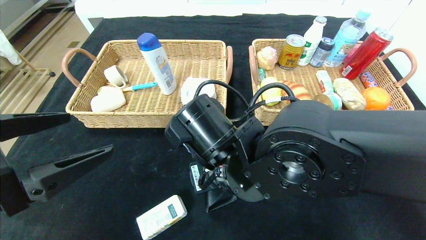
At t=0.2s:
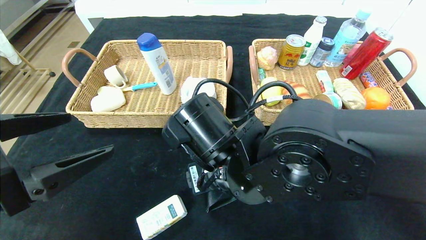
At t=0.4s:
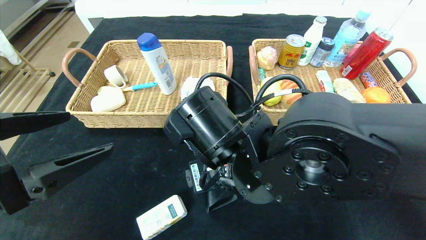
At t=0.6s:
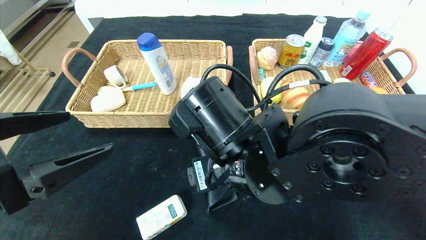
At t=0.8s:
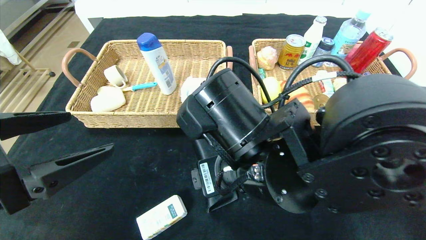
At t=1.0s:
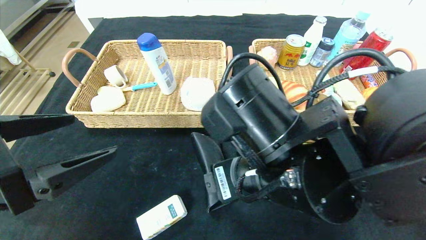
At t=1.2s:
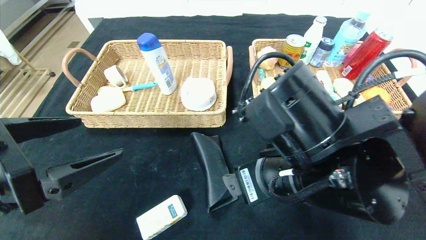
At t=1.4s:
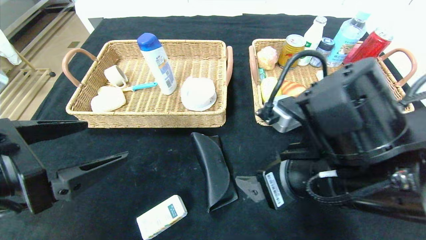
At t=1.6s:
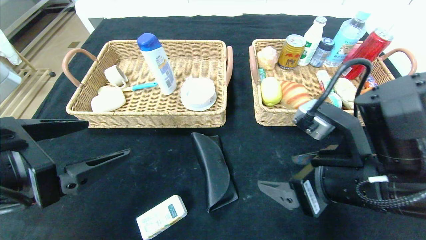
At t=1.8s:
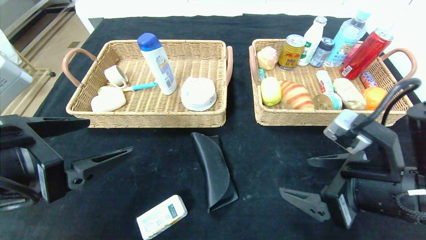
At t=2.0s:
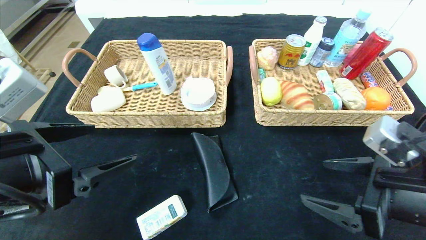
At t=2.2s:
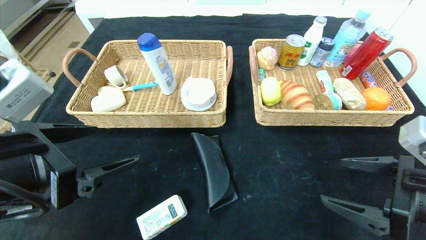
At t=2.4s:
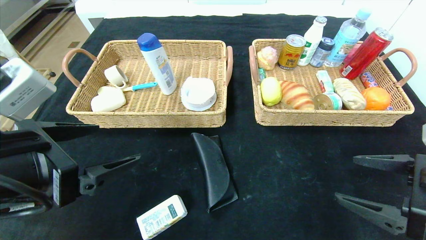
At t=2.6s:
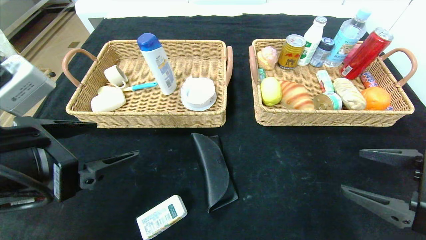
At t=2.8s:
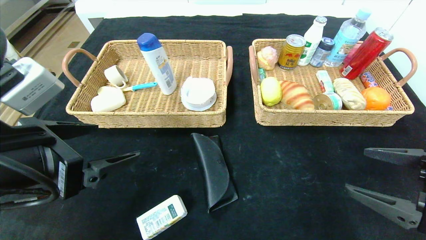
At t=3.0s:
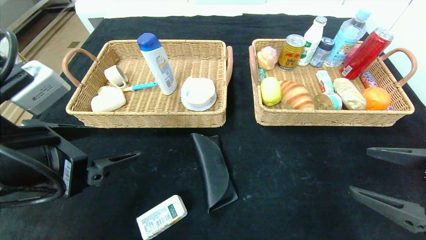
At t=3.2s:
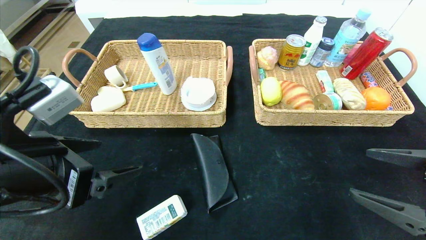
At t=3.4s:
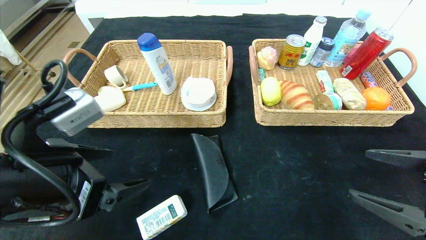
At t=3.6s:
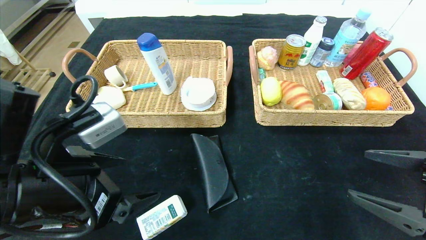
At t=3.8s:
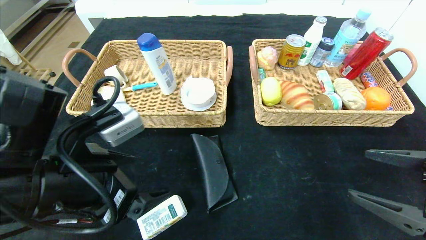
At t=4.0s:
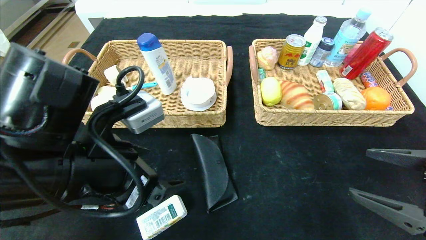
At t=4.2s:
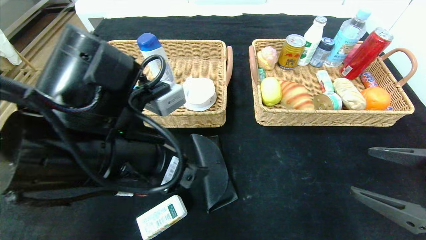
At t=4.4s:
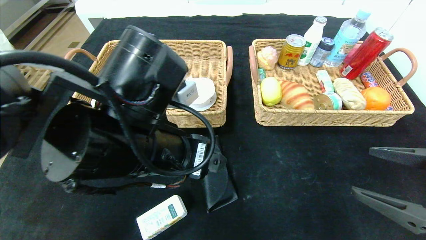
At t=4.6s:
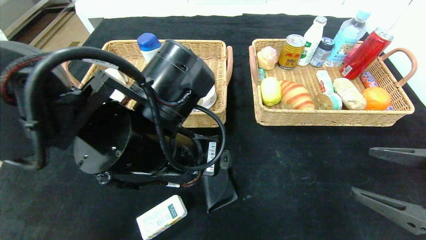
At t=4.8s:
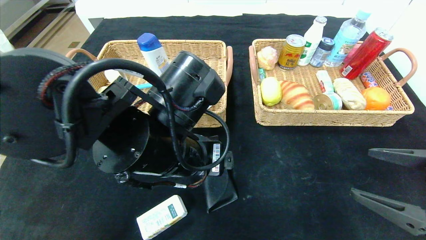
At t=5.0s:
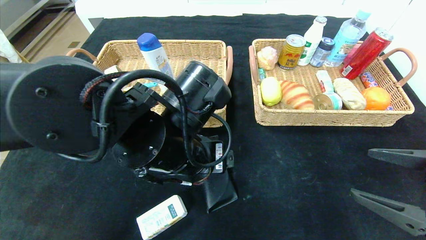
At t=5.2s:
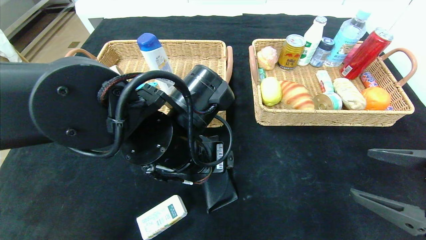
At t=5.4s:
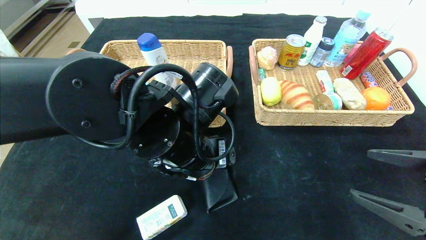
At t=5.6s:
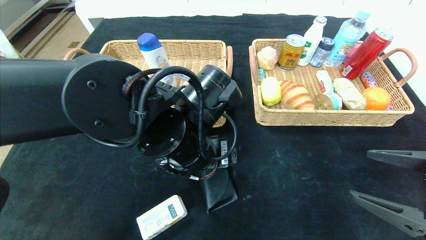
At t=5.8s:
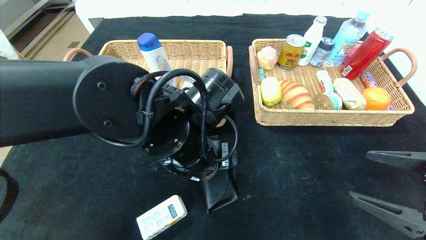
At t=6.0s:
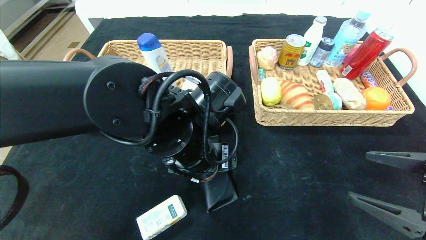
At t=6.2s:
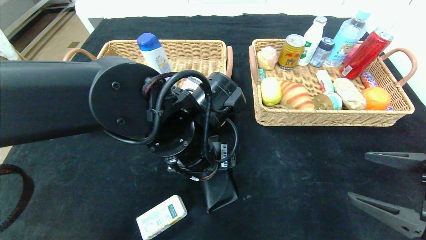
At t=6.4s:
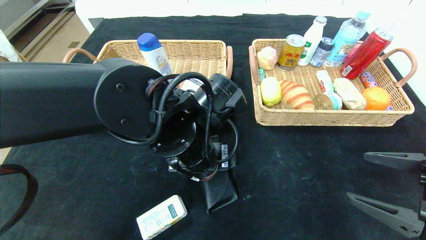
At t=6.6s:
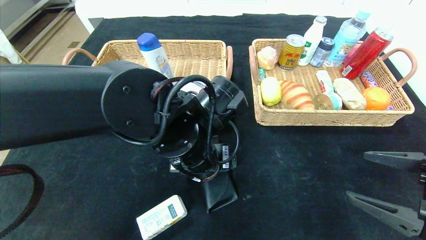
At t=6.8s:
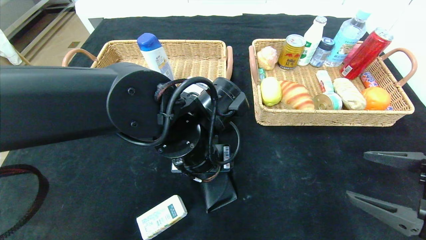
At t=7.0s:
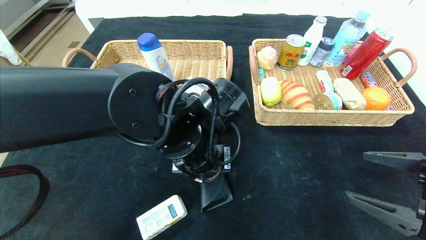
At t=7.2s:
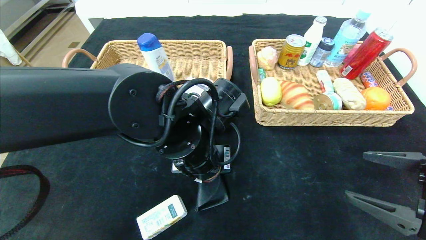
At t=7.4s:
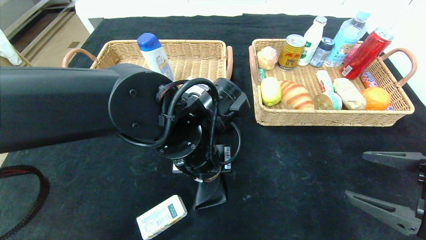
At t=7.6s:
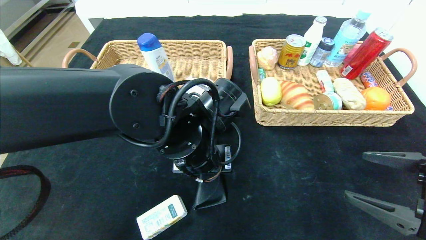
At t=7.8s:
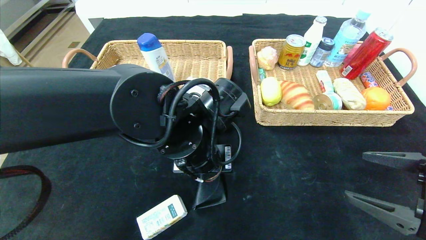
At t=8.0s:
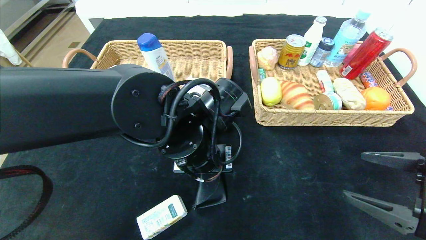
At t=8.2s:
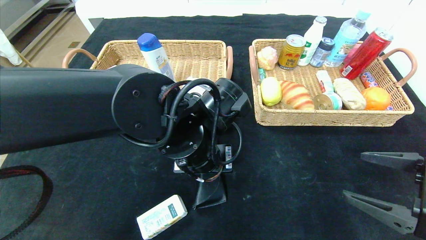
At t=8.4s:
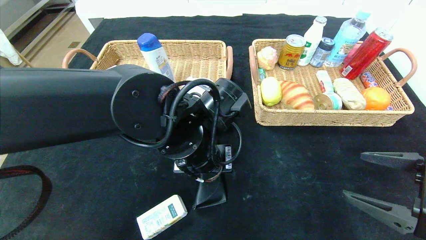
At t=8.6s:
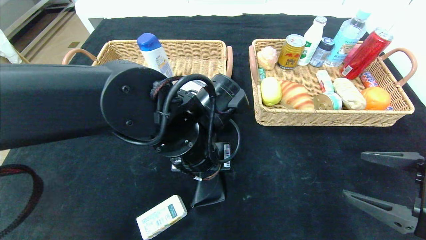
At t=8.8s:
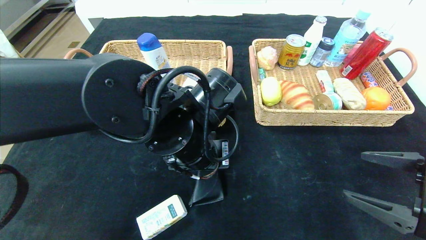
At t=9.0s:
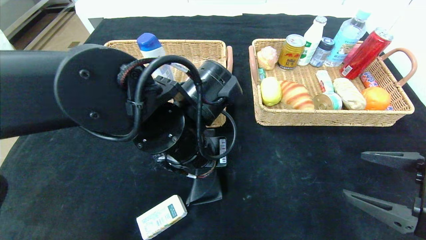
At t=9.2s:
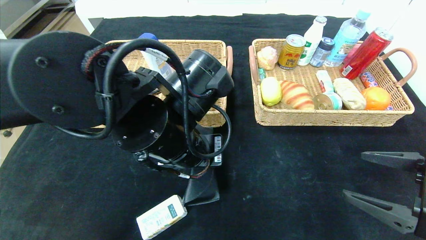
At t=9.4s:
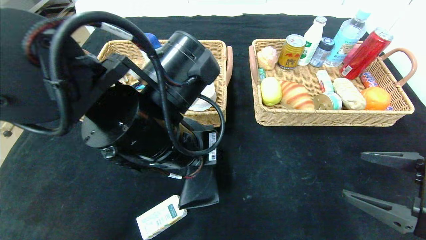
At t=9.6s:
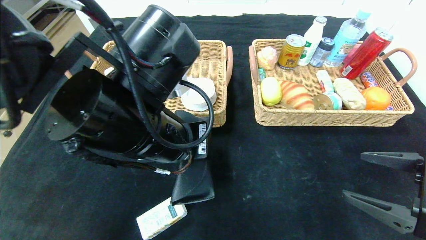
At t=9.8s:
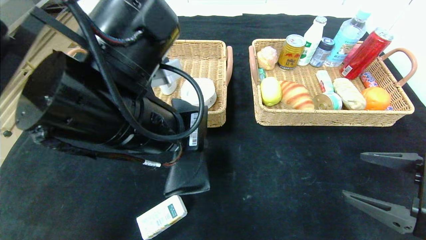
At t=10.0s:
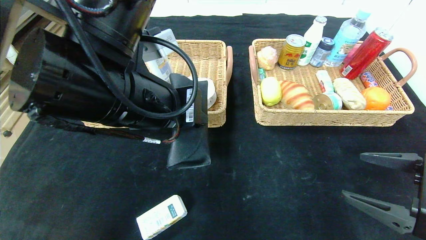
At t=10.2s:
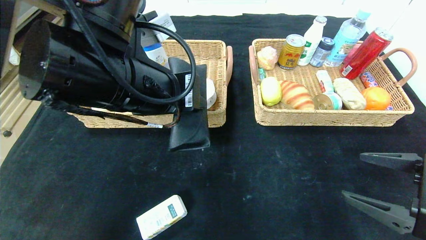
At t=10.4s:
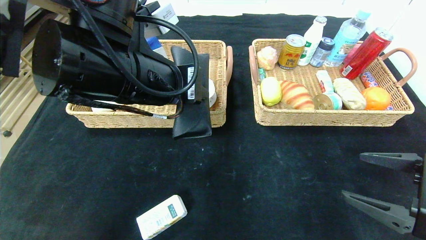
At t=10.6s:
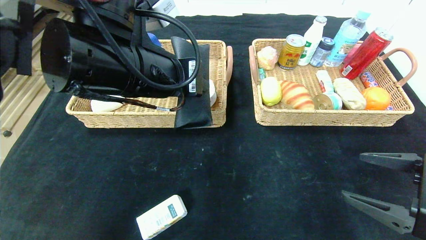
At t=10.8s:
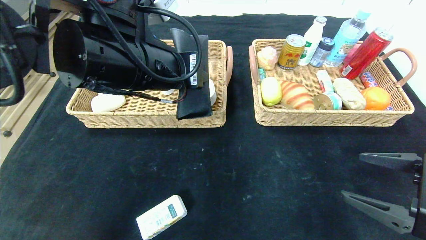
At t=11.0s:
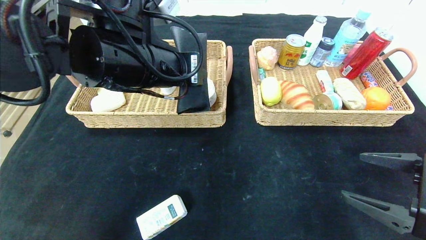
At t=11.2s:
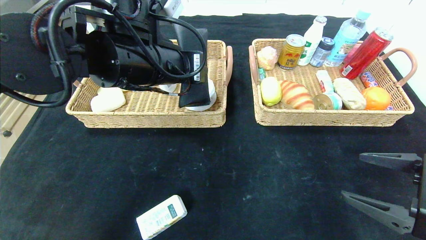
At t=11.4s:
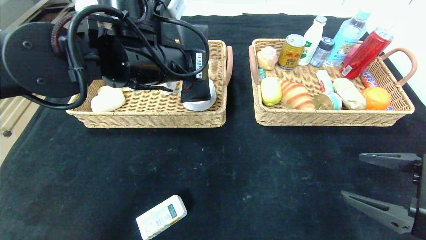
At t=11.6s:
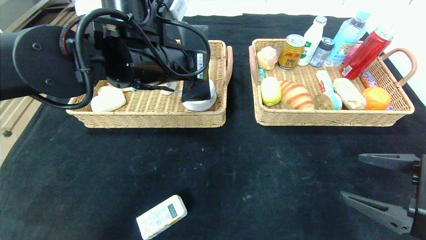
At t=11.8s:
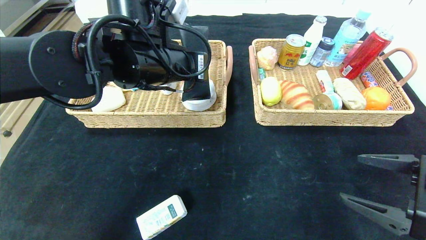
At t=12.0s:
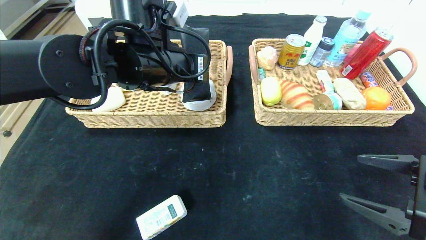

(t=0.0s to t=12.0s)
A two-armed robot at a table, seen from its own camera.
t=0.0s - t=1.6s: The right gripper goes approximately 15 cm to the right.
t=1.6s - t=3.0s: The right gripper shifts about 15 cm to the right.
t=3.0s - t=4.4s: The left gripper heads to the right, covering some 15 cm.
t=4.4s - t=6.0s: The left gripper shifts by some 5 cm.
t=6.0s - t=7.6s: The left gripper closes.
t=7.6s - t=9.0s: The grippers move only a little.
t=9.0s - t=10.4s: The left gripper travels upward and to the left by approximately 10 cm.
t=10.4s - t=12.0s: The left gripper shifts some 10 cm forward.

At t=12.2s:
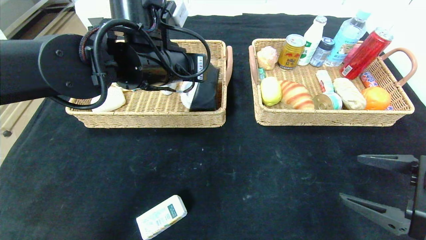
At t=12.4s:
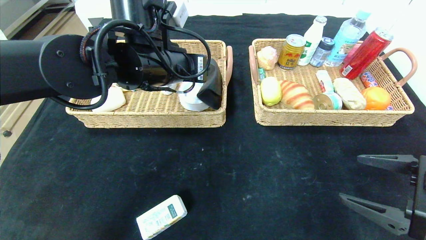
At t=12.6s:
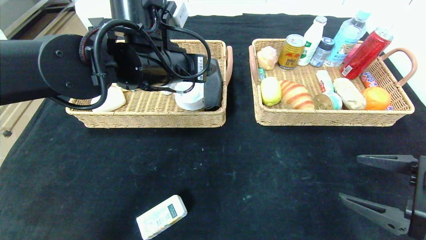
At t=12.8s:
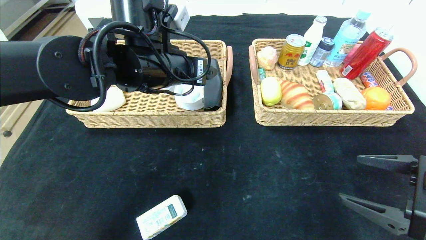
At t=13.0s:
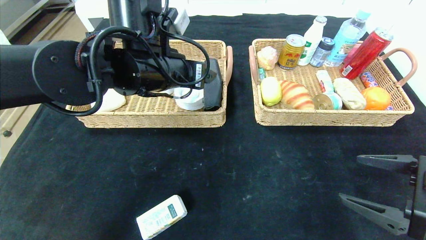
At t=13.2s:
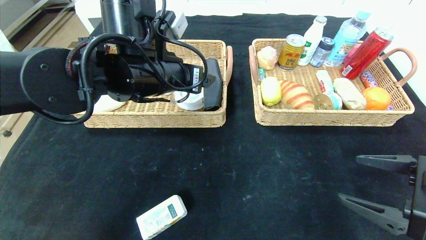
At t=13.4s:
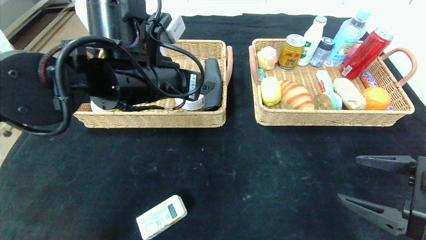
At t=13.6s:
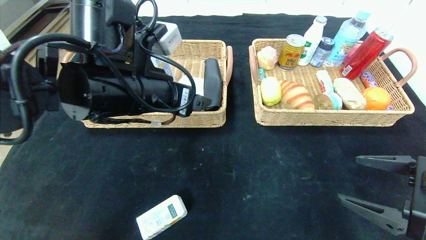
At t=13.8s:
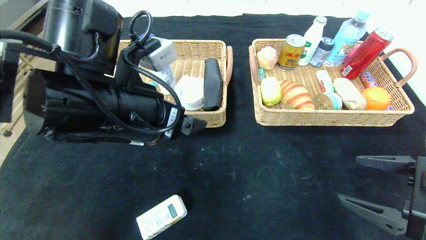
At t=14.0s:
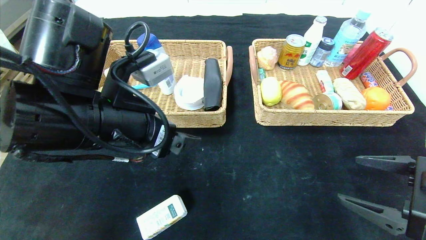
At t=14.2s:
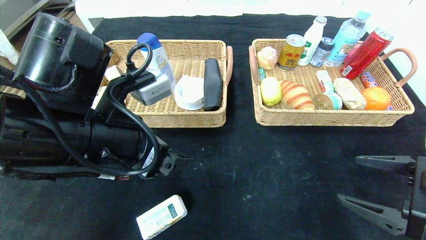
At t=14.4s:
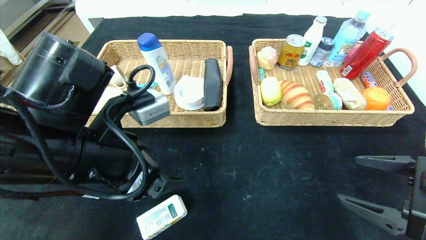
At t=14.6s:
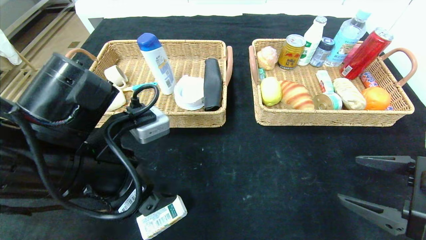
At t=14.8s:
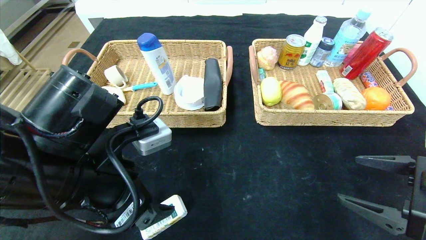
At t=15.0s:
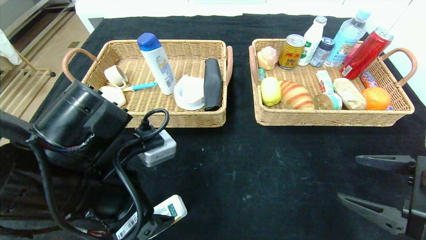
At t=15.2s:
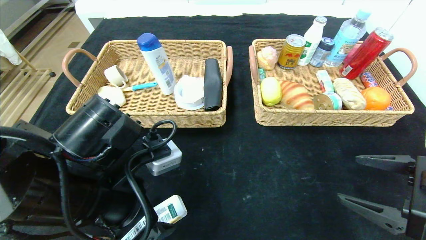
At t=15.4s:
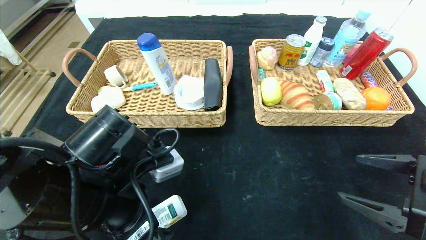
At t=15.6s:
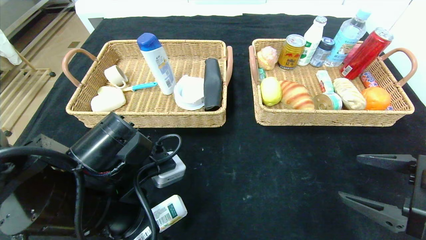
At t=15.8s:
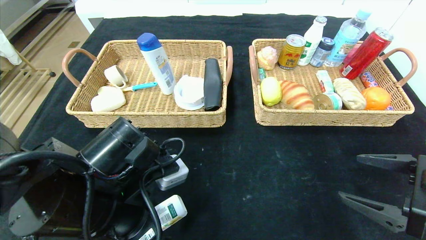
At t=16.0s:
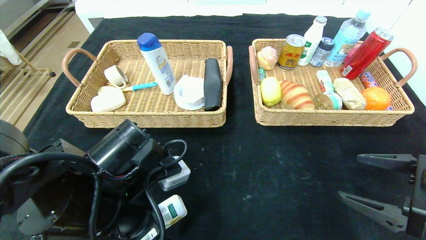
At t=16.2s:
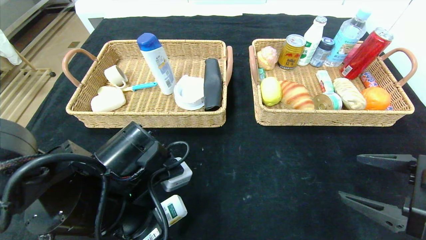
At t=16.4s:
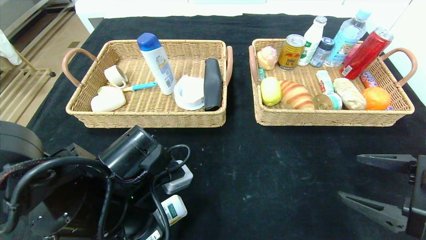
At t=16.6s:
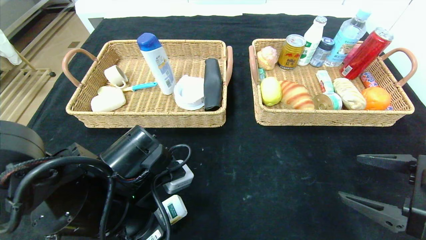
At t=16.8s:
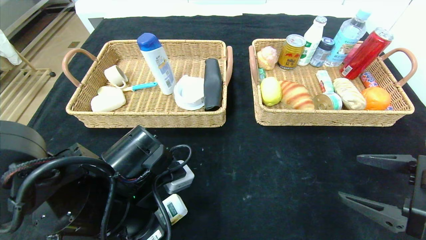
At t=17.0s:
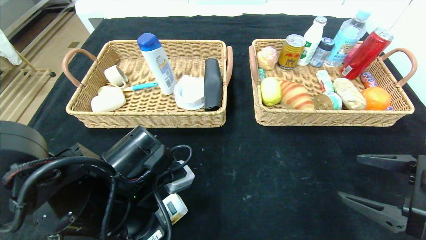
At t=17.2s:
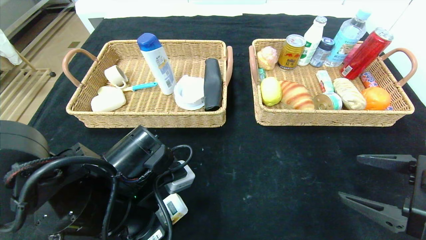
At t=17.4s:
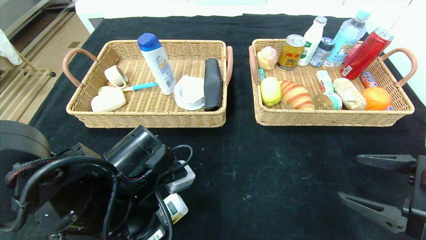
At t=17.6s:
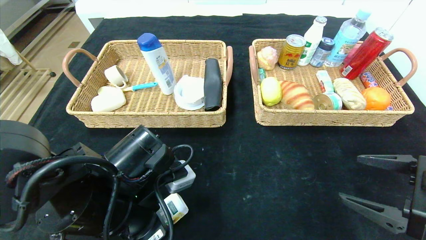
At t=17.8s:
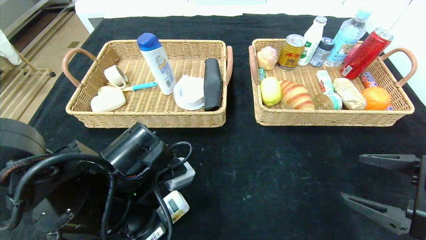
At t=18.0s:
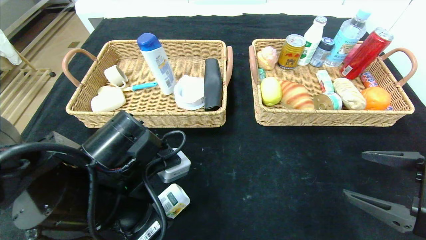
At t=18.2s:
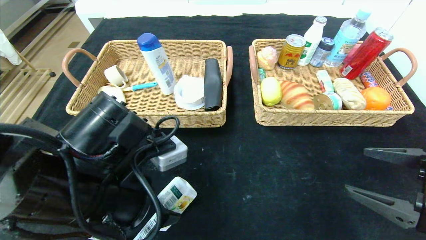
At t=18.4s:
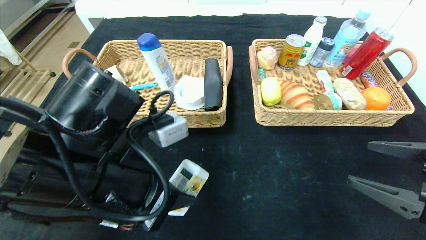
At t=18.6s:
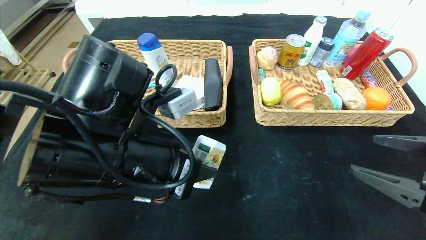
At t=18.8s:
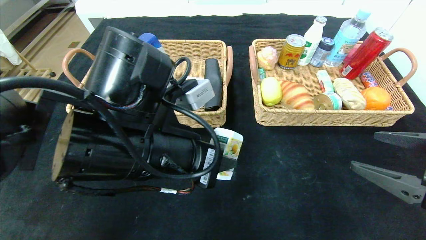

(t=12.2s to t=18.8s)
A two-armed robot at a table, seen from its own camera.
Step, t=12.2s - t=14.2s: Pick up the glasses case and put it in the left basket.
t=12.2s - t=13.8s: The left gripper goes some 10 cm backward, and opens.
t=13.8s - t=15.4s: The left gripper is displaced downward and backward by about 10 cm.
t=15.4s - t=17.2s: The left gripper closes its fingers.
t=17.2s - t=18.8s: The left gripper heads upward and to the right, covering about 10 cm.
